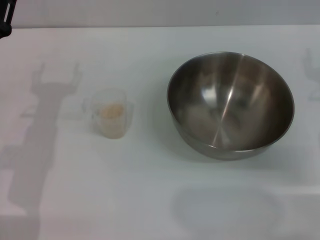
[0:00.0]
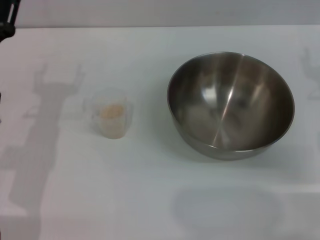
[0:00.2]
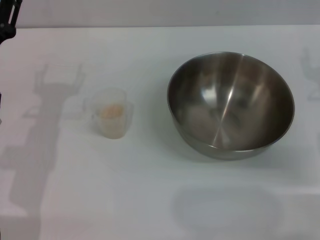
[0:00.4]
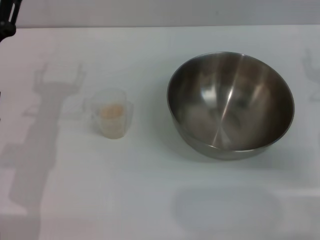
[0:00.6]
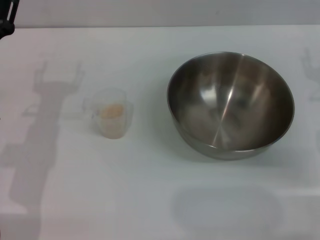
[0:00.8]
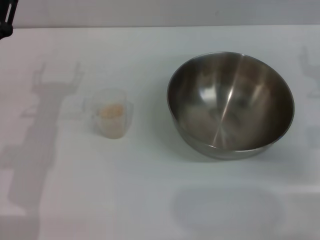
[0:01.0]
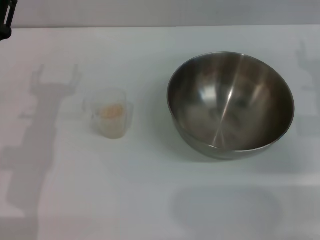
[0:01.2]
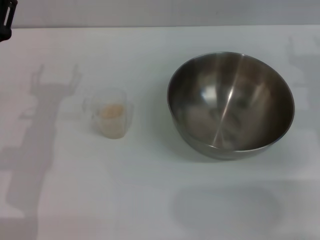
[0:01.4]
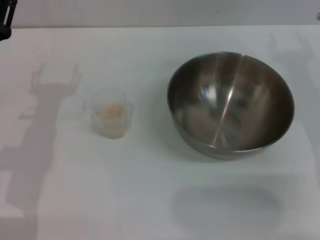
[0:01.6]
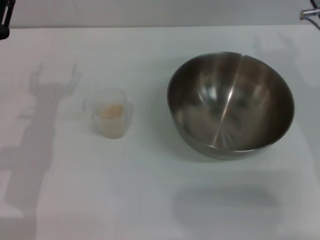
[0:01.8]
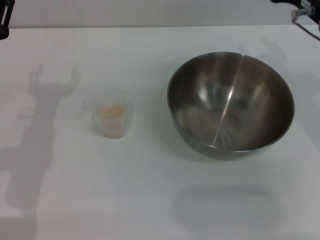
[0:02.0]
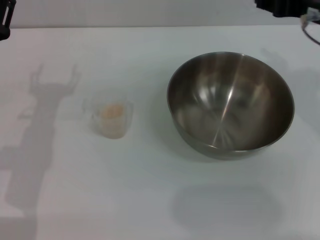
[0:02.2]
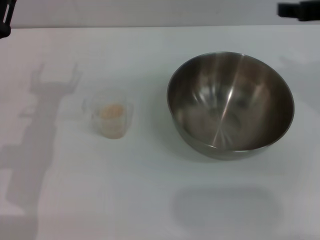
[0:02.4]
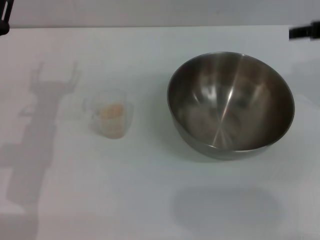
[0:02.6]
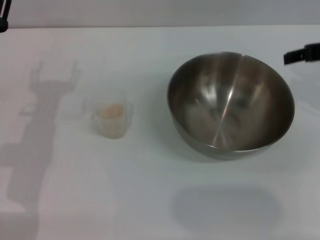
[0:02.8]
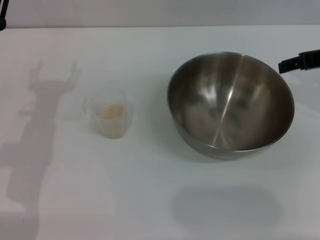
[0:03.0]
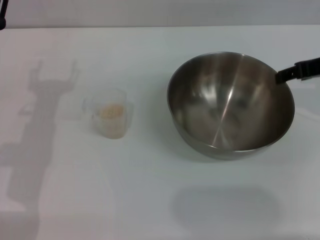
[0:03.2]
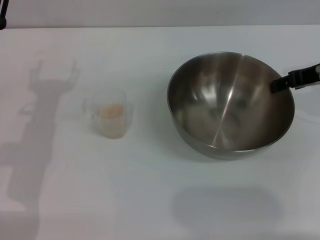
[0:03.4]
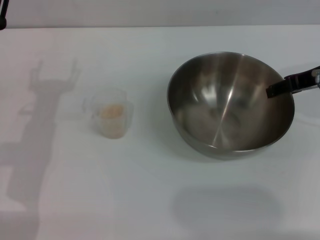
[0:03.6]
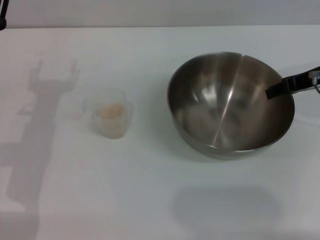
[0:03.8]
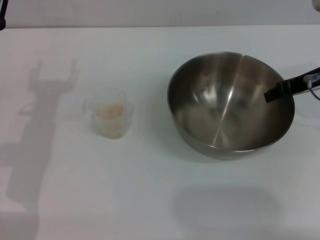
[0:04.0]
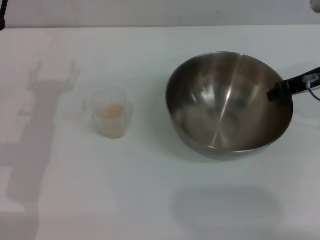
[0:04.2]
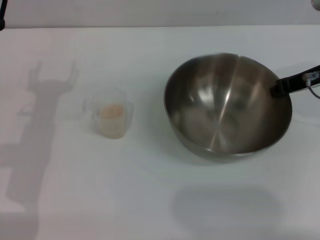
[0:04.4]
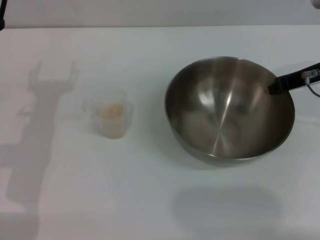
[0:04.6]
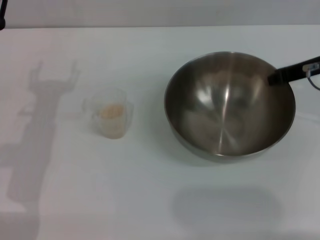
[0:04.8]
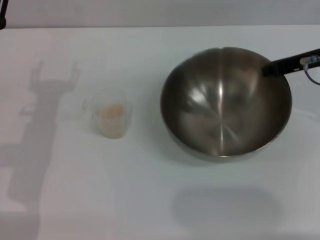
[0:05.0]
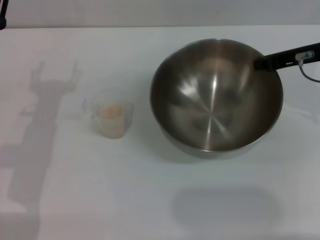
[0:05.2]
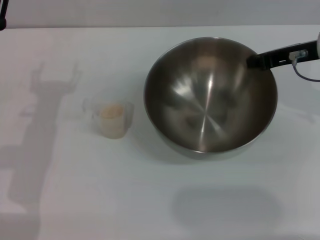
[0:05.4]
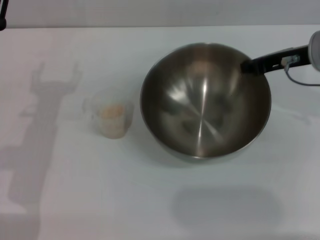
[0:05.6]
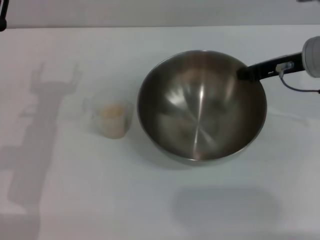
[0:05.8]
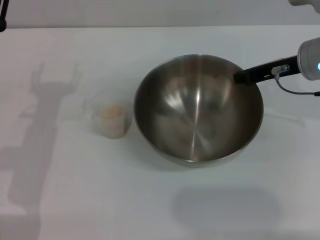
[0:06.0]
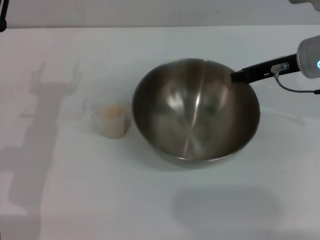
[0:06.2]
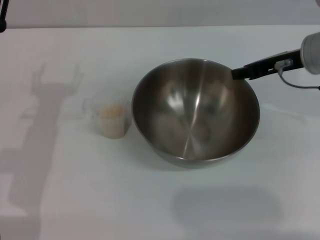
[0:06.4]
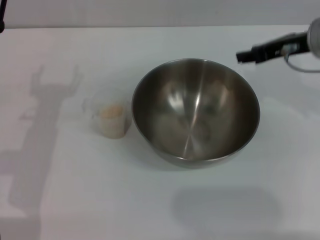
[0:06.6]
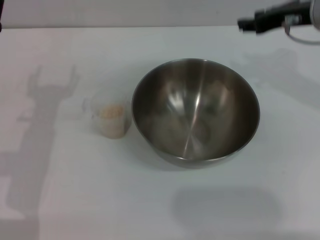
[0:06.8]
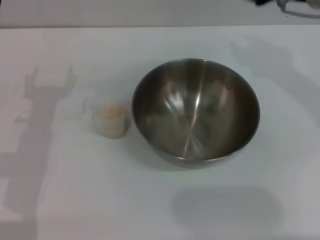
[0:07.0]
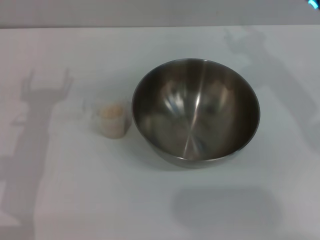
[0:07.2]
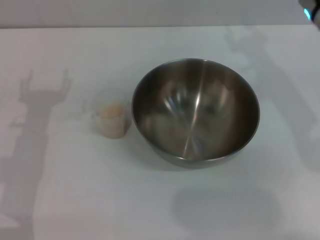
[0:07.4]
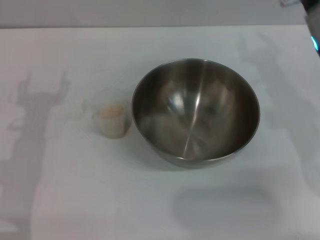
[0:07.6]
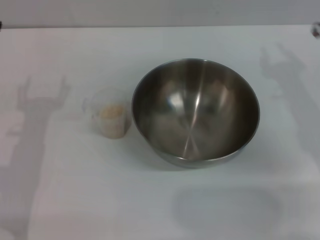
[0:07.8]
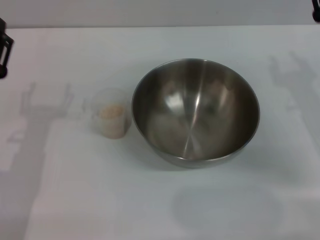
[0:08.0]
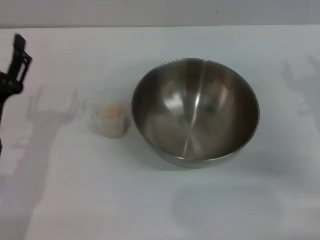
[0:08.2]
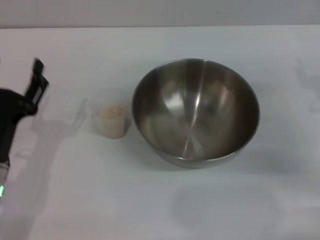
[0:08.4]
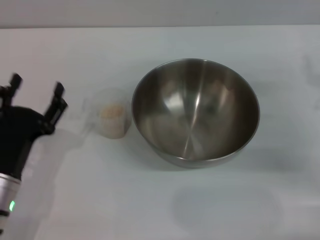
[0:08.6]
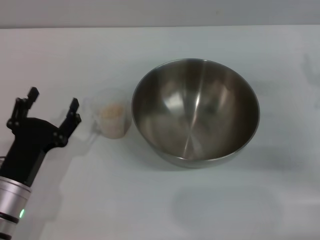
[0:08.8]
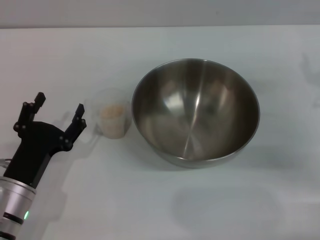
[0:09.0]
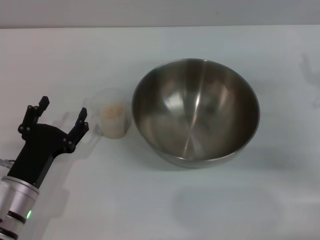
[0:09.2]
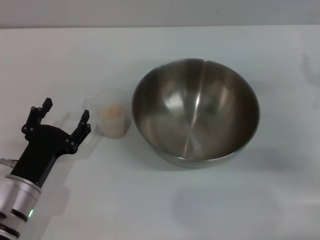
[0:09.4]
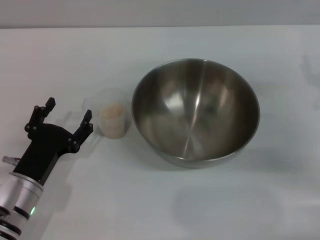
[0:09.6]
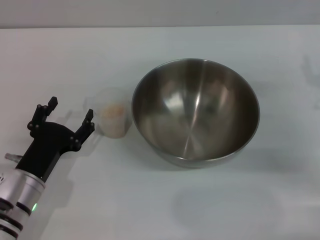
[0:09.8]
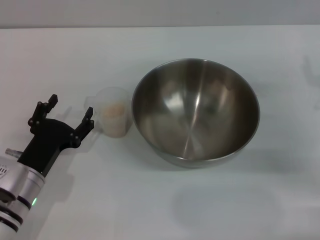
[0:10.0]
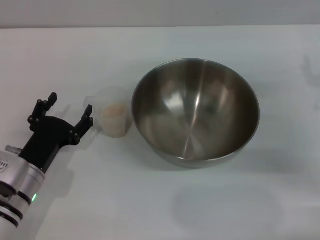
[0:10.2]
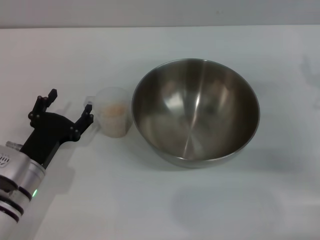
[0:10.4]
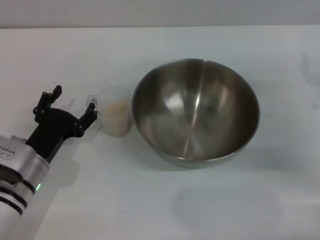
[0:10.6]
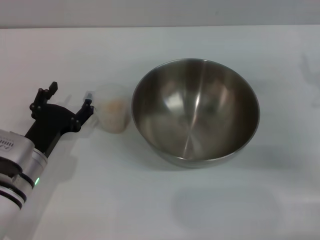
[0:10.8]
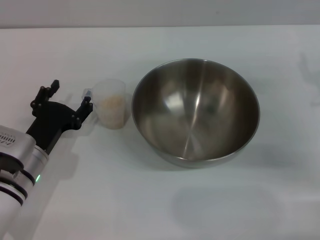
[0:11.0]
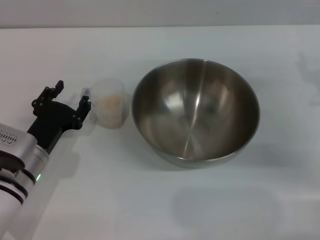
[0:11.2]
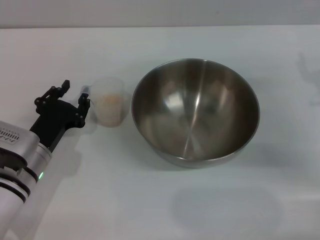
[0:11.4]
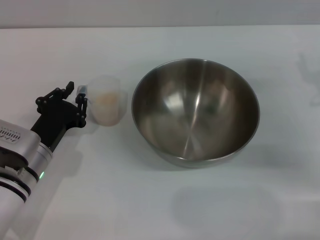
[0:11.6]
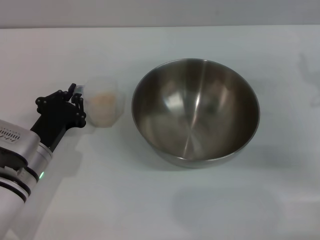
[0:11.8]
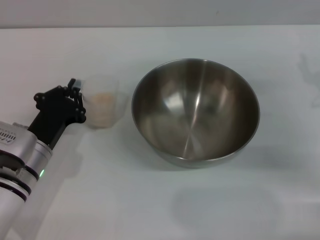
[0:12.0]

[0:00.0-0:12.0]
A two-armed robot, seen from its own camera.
Task of the whole recording: Place the bowl in the middle of the table with one hand and pour the rice from the grain cup into it with the other hand.
Step, 0:00.0 to 0:05.4: Pick up the bowl with the right gripper.
Step, 0:05.6 to 0:06.6: Place the bowl in the center of view with the right gripper.
0:00.0 to 0:01.6: The right gripper shifts by approximately 5 cm.
0:01.6 to 0:03.0: The right gripper goes about 5 cm upward.
0:03.0 to 0:04.4: The right gripper closes its fingers.
0:04.4 to 0:06.0: There are only small adjustments of the grippers.
0:06.0 to 0:07.6: The right gripper opens up.
0:07.6 to 0:09.0: The right gripper moves to the right and downward, approximately 10 cm, and opens up. Meanwhile the left gripper heads downward and backward, covering about 10 cm.
0:09.0 to 0:10.4: The grippers make only small movements.
0:10.4 to 0:12.0: The left gripper closes.

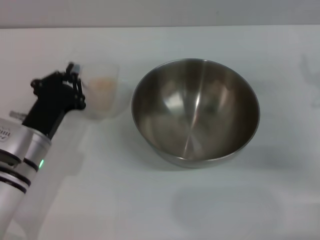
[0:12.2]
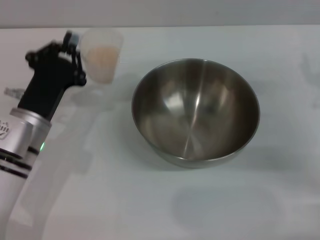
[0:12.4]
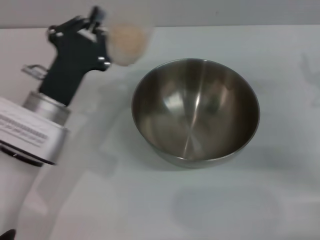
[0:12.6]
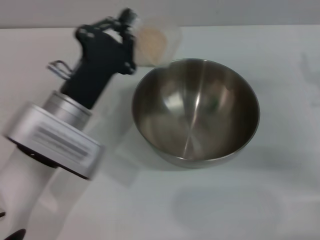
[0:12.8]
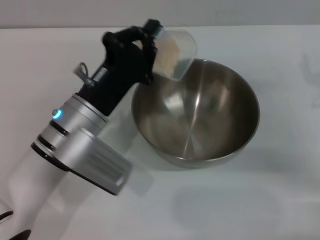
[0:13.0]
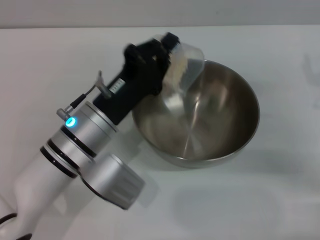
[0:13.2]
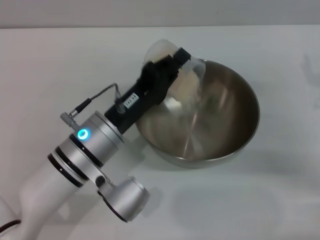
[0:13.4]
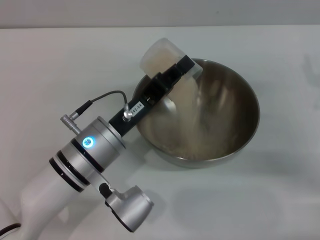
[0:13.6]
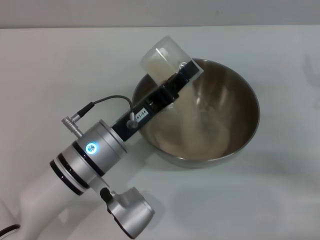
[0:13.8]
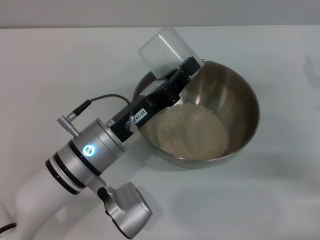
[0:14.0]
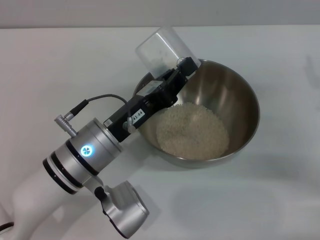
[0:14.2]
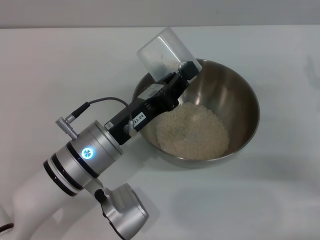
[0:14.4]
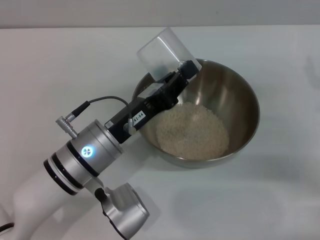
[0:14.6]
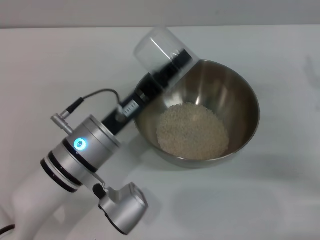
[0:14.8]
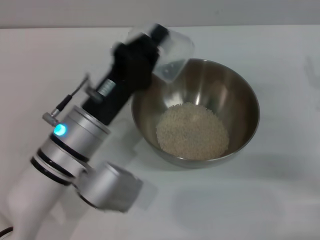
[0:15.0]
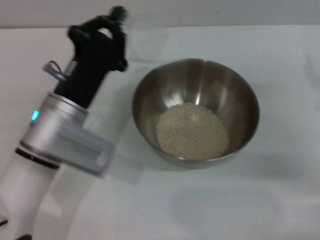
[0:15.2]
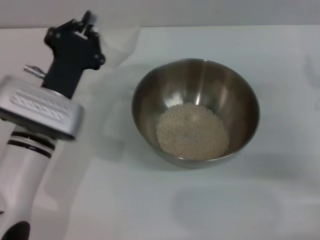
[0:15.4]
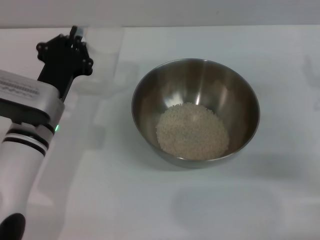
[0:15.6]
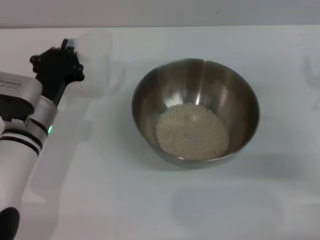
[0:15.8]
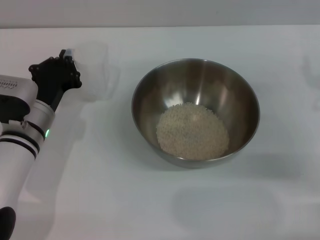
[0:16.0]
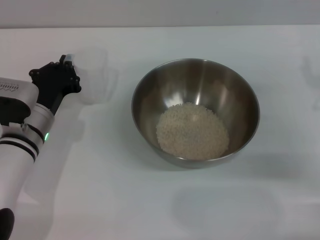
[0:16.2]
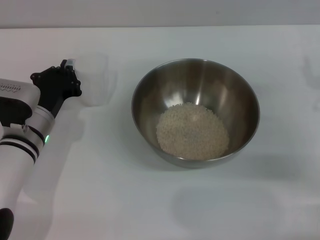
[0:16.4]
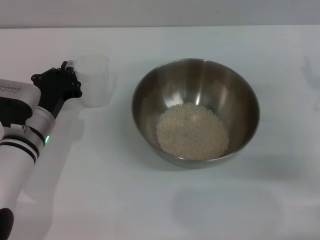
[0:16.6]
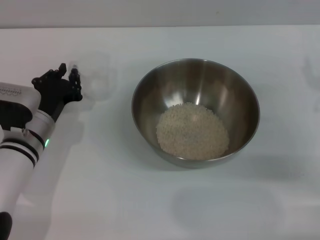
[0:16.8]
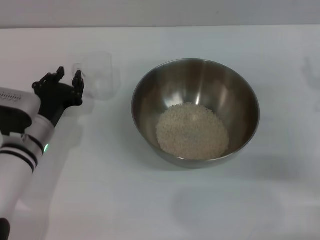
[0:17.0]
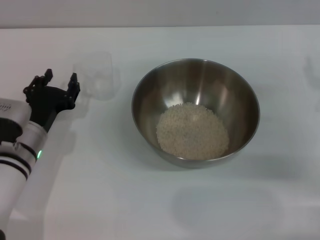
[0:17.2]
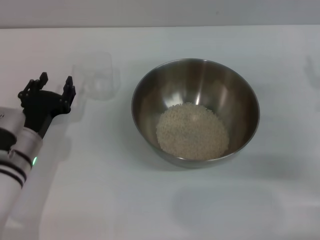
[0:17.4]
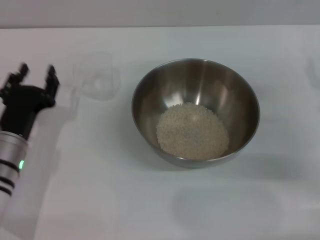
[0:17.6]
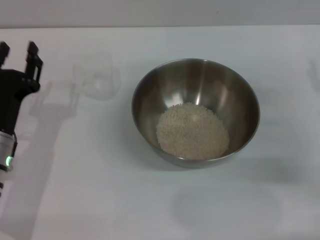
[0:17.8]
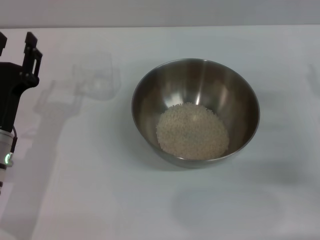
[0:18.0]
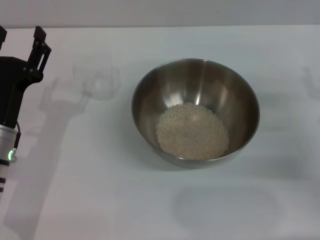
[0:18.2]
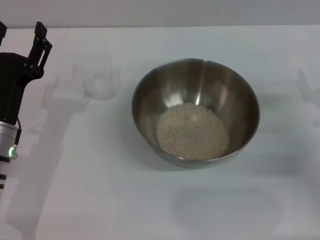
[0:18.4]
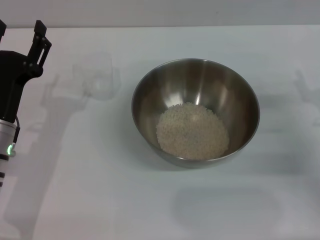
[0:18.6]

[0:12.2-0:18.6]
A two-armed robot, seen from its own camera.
Task of the whole recording: Place the bowl in the middle of the table with one hand and pour the rice from the grain cup into it with the other hand.
Step, 0:12.4 to 0:14.0: Pour the rice from the cup into the bowl with the left gripper.
Step, 0:14.4 to 0:17.4: Place the cup on the table with the left gripper.
0:12.2 to 0:13.8: The left gripper heads to the right, covering about 10 cm.
0:13.8 to 0:15.4: The left gripper shifts roughly 5 cm to the left.
0:15.4 to 0:17.0: The left gripper travels downward by some 5 cm.
0:17.0 to 0:18.6: The left gripper shifts by roughly 5 cm, and opens.

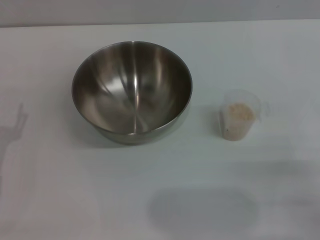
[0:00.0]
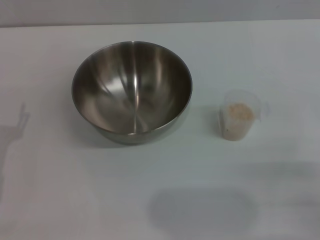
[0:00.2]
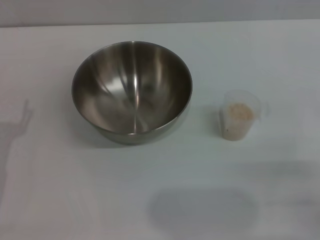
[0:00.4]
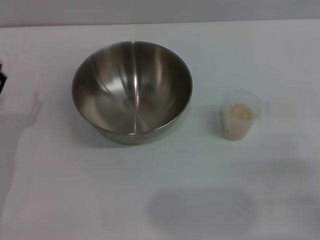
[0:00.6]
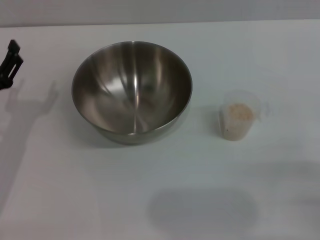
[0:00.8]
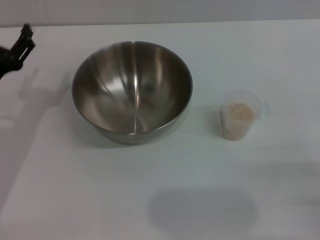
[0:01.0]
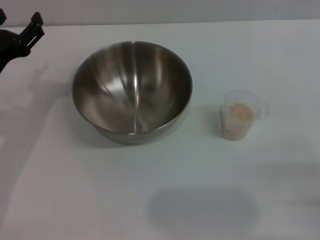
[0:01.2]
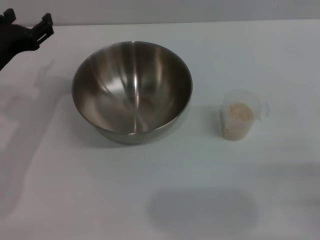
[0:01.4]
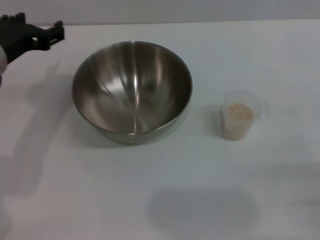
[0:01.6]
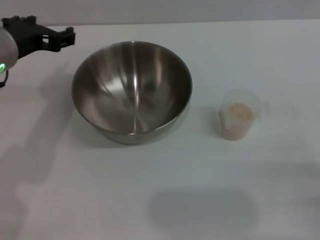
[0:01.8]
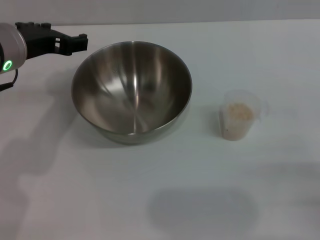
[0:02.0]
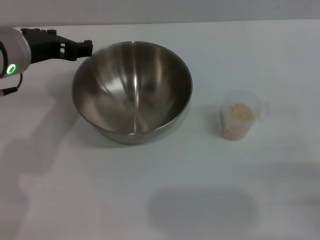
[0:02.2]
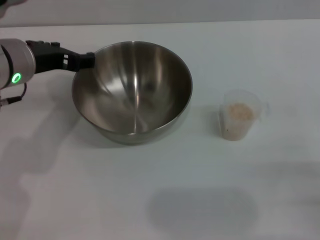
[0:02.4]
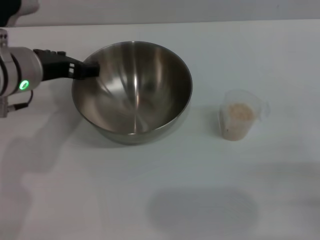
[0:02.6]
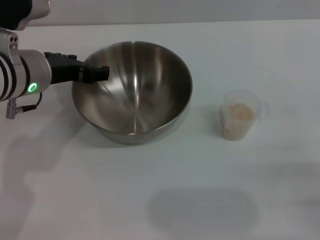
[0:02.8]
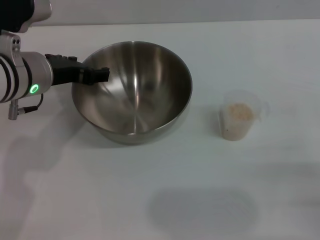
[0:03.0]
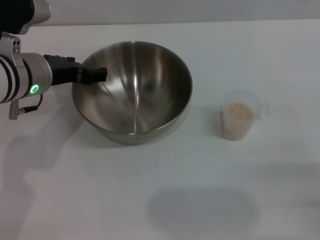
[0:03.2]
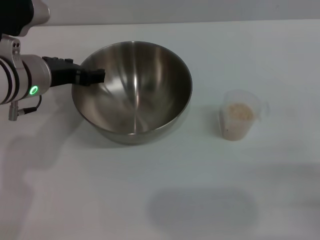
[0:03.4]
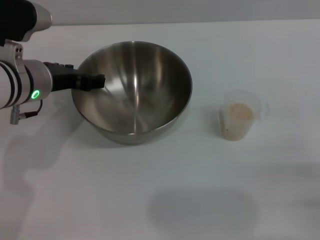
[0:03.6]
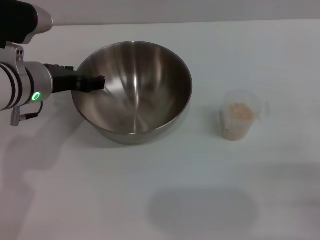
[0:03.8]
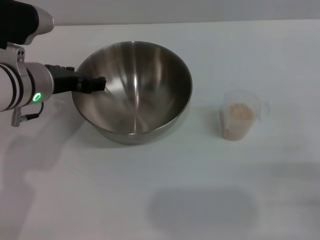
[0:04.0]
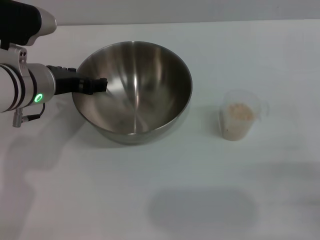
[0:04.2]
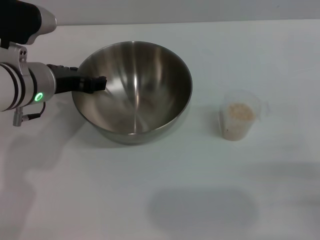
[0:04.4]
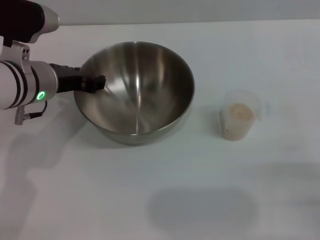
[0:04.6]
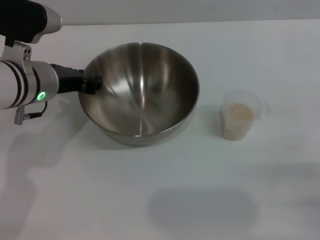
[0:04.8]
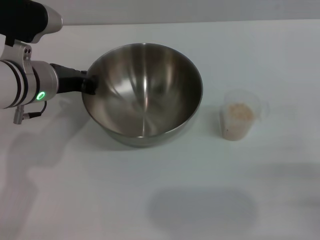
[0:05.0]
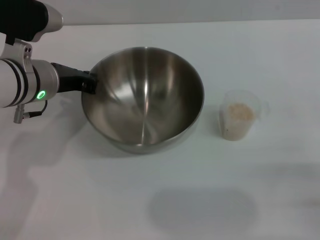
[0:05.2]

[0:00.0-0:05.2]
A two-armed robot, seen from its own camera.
Task of the whole recording: Place the bowl in the middle of the table with one hand and pour the rice from the grain cup into it with the other hand.
0:00.0 to 0:01.8: The left gripper is displaced upward, forward and to the right by approximately 25 cm.
0:01.8 to 0:03.4: The left gripper changes place by about 5 cm.
0:03.4 to 0:05.2: The left gripper closes its fingers.
